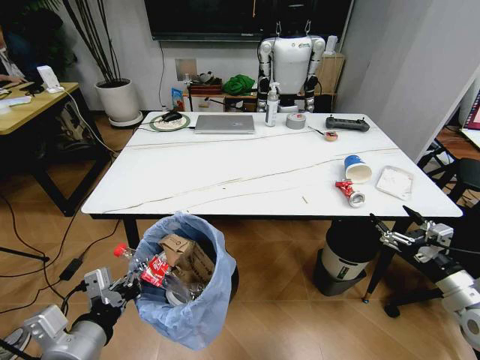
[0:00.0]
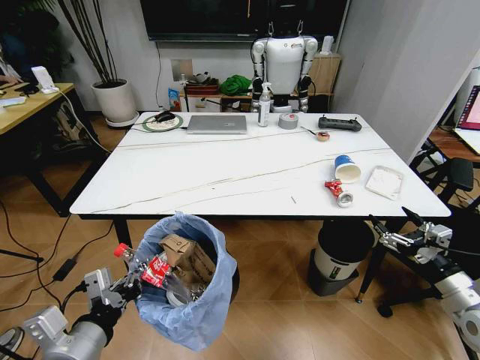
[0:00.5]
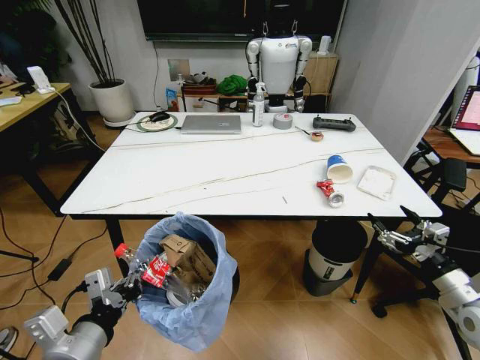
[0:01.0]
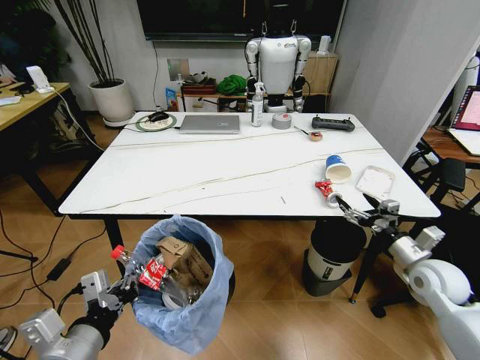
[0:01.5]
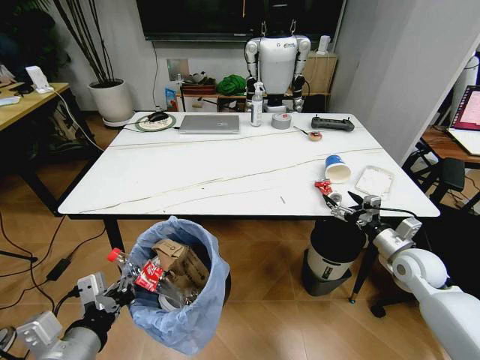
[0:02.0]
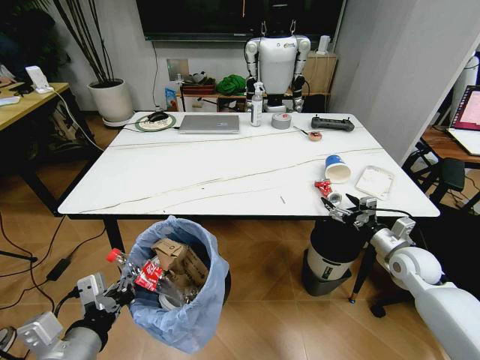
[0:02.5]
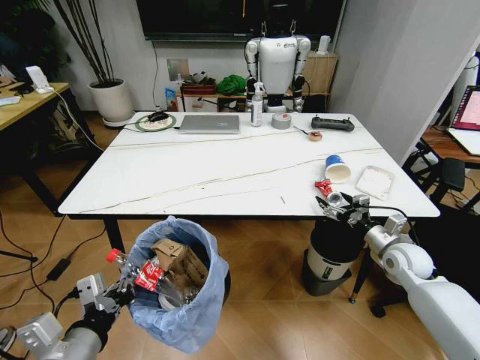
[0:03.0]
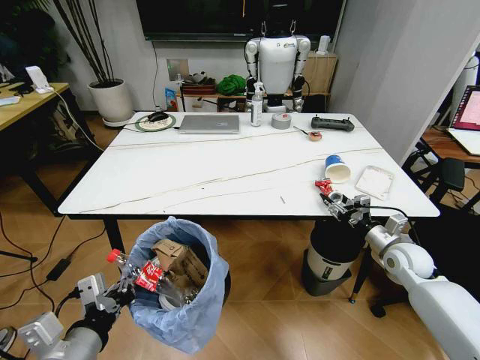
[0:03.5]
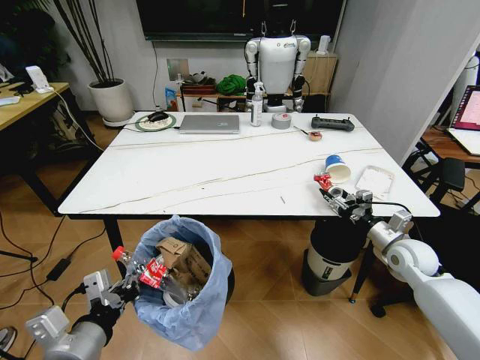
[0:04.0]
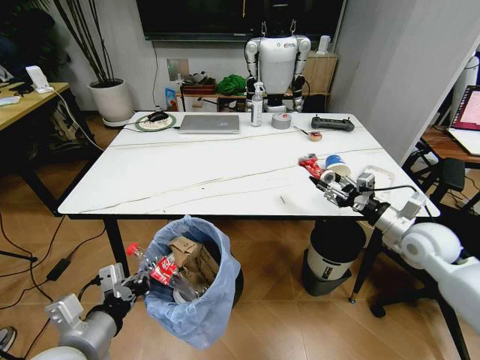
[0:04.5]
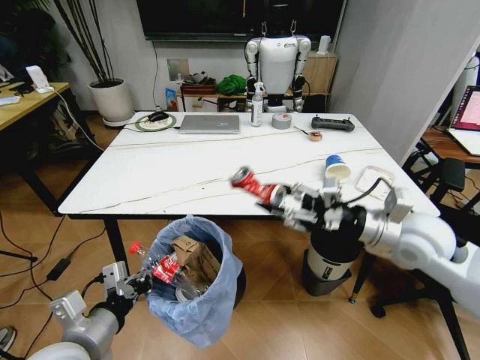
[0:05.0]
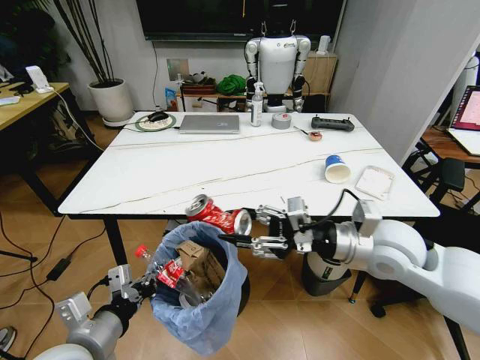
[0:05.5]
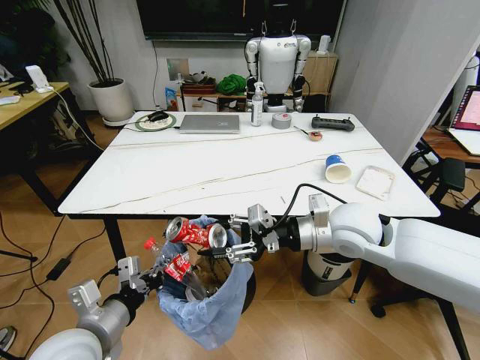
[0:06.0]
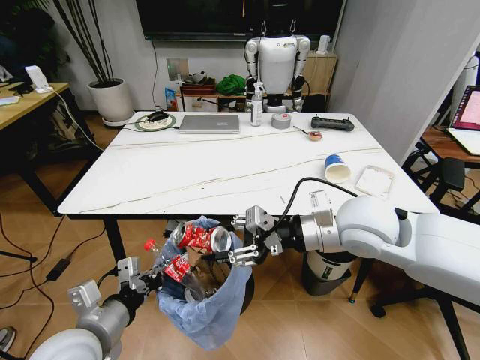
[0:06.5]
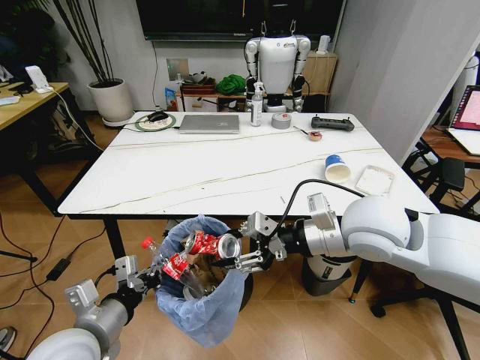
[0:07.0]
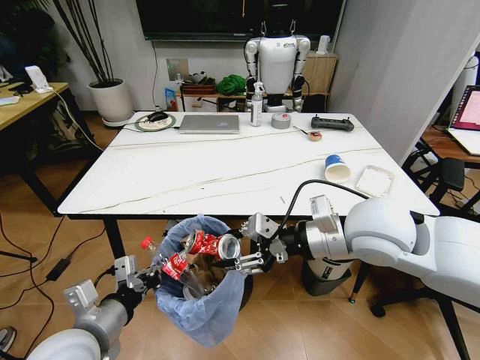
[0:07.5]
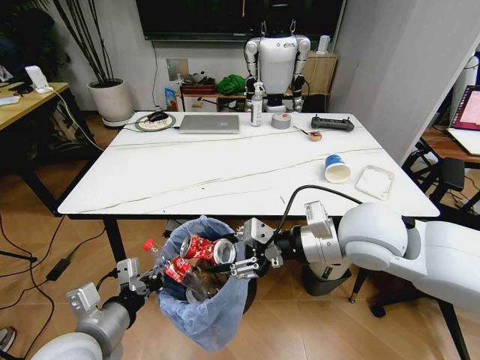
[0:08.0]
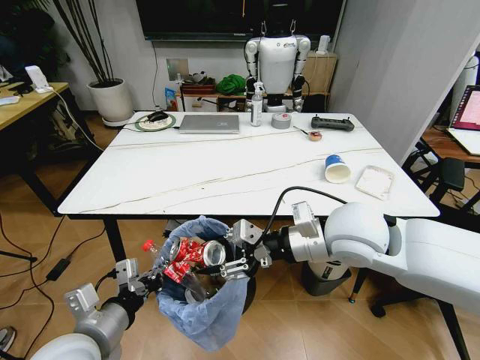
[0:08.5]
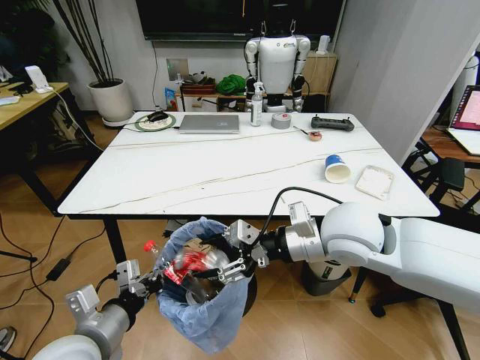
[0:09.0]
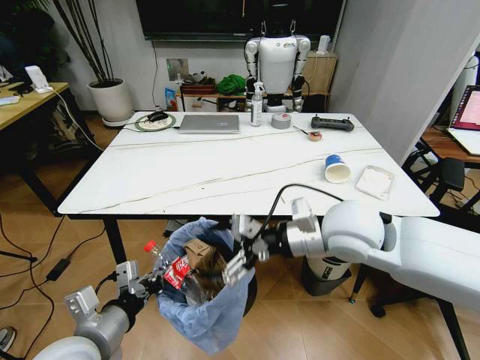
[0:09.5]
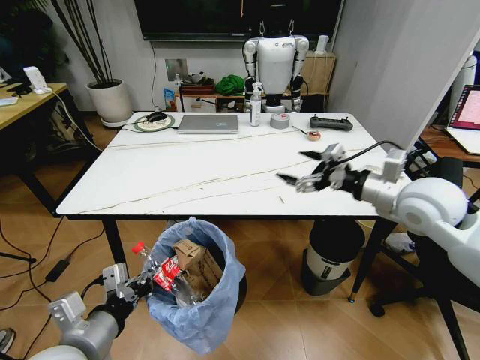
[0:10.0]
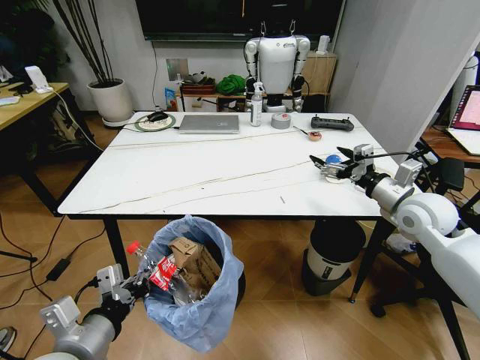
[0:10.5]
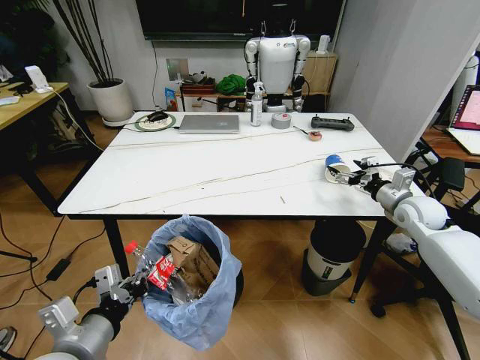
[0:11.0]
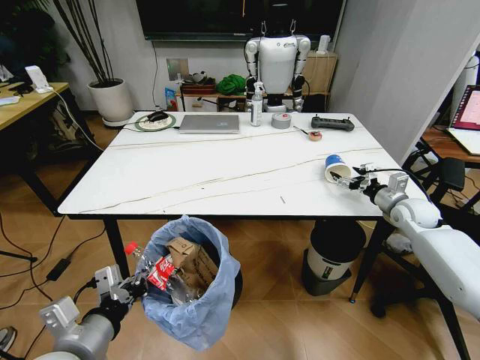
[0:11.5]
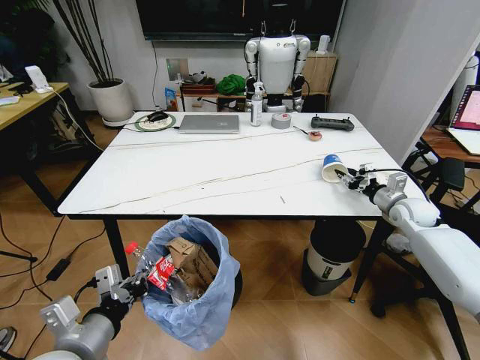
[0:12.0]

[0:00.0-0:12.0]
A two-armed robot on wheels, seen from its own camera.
Task of the whole recording: Pick up the trash bin and place the trash from the table into it.
0:00.0 to 0:02.0: The right gripper travels forward and to the left by roughly 15 cm.
0:02.0 to 0:04.0: The right gripper closes.
0:04.0 to 0:06.0: The right gripper moves to the left and upward, some 25 cm; the left gripper shifts by some 5 cm.
0:06.0 to 0:08.0: The right gripper ends up roughly 5 cm from where it was.
0:08.0 to 0:10.0: The right gripper shifts approximately 15 cm to the right and forward, and opens.
0:10.0 to 0:12.0: The right gripper heads downward, to the right and forward, covering approximately 25 cm, and closes up.

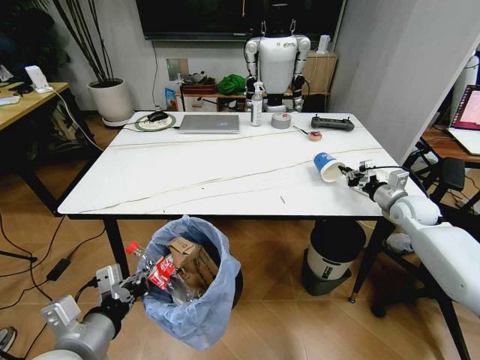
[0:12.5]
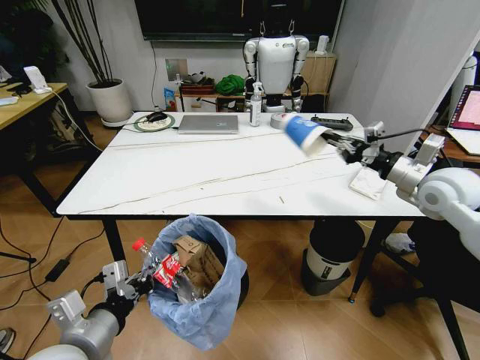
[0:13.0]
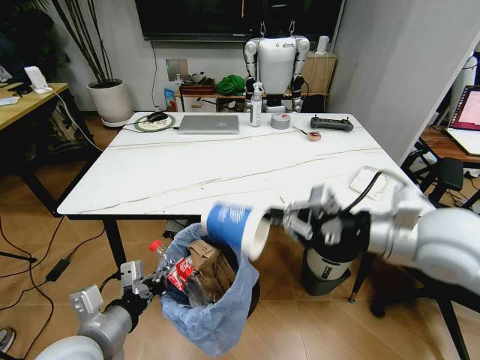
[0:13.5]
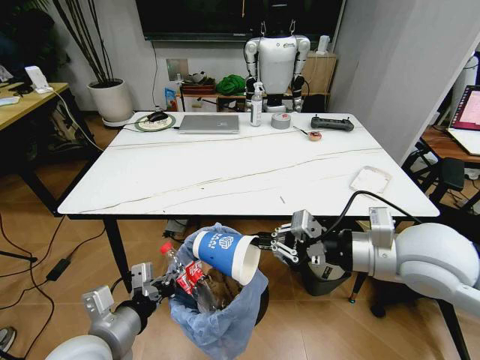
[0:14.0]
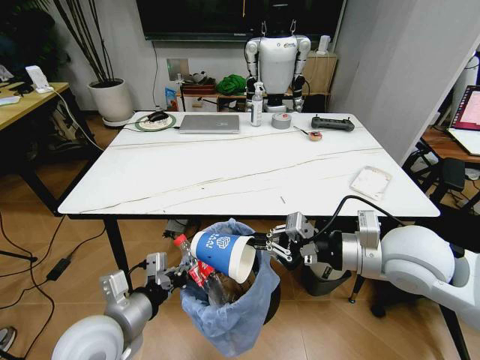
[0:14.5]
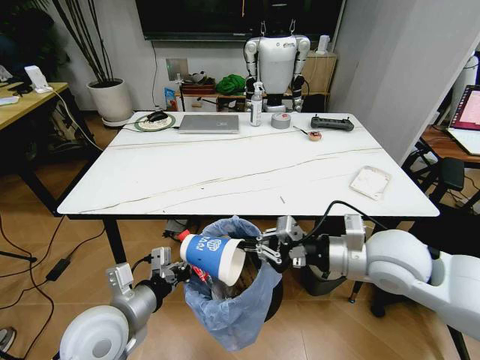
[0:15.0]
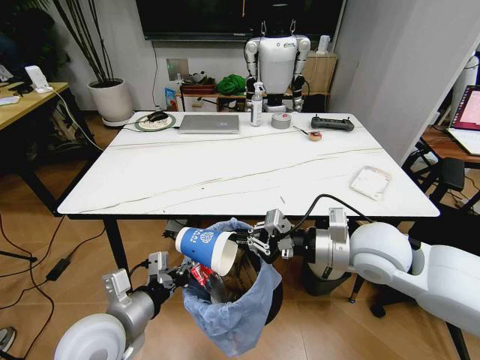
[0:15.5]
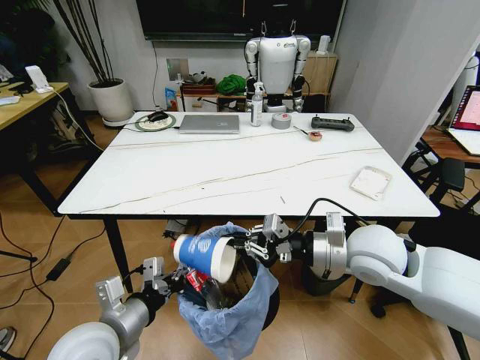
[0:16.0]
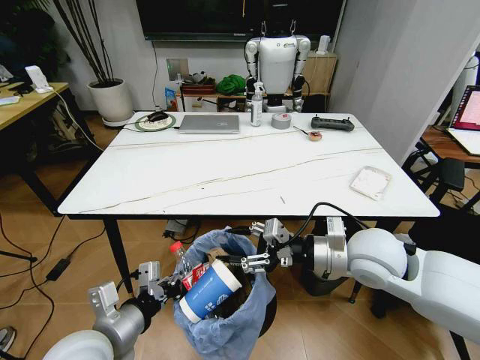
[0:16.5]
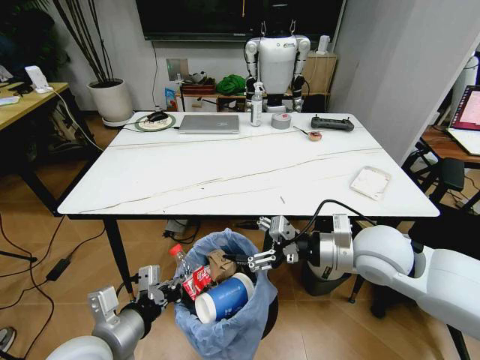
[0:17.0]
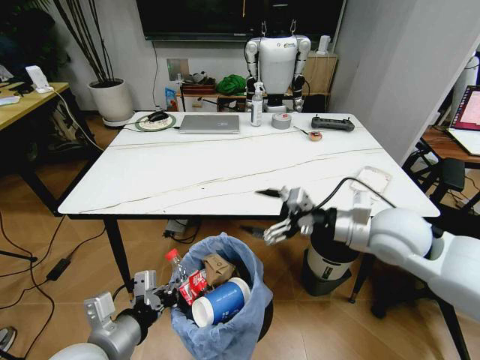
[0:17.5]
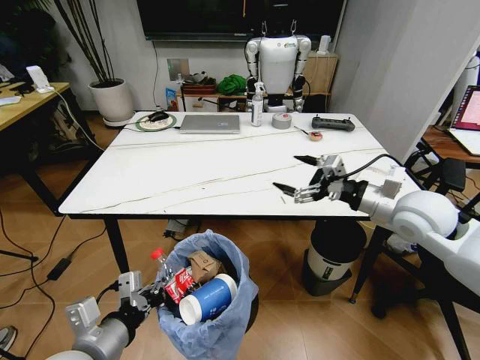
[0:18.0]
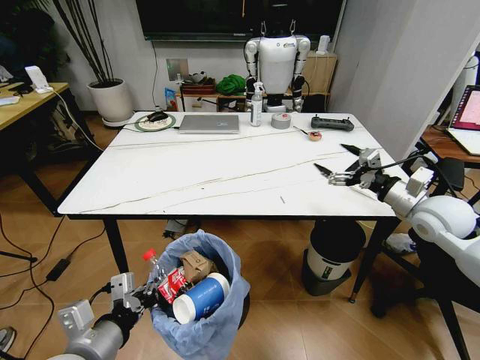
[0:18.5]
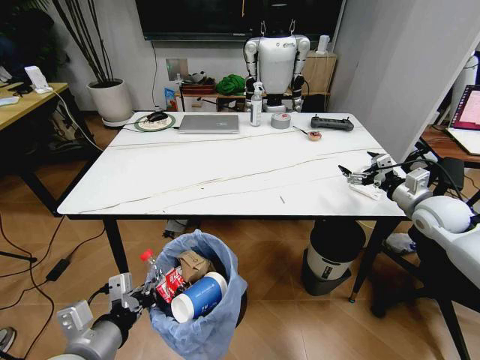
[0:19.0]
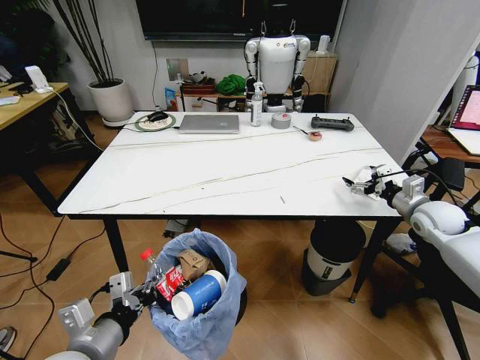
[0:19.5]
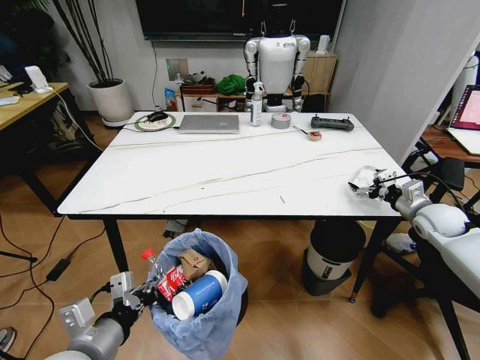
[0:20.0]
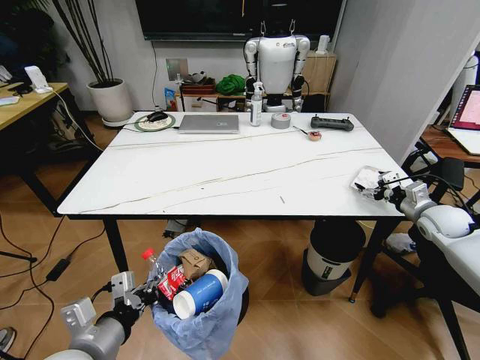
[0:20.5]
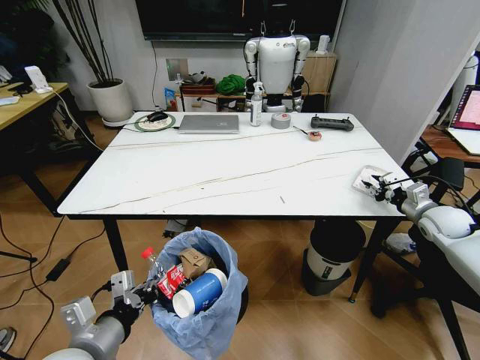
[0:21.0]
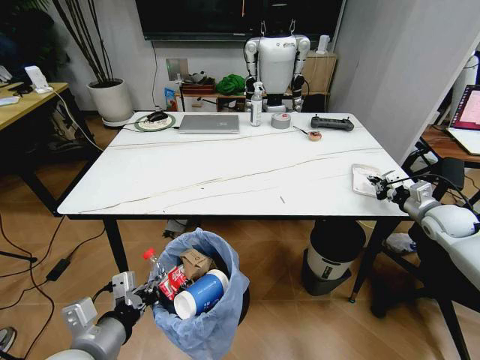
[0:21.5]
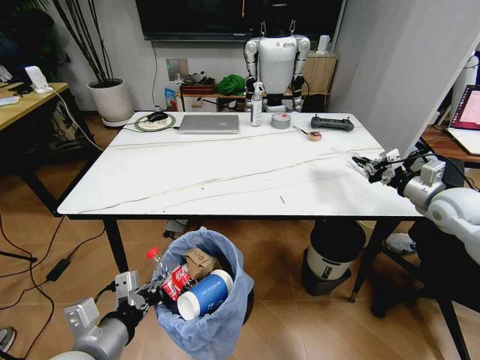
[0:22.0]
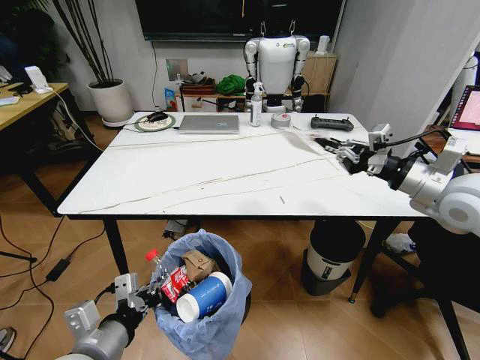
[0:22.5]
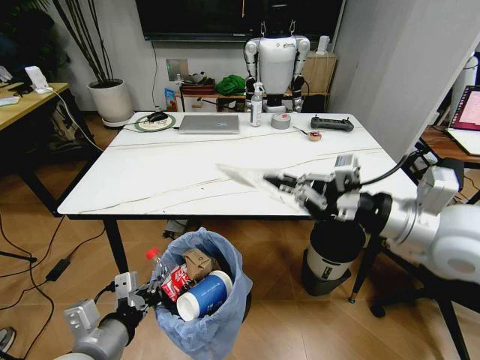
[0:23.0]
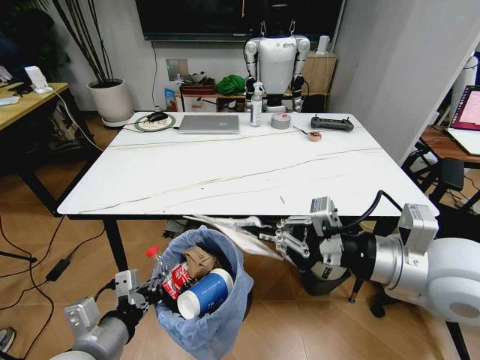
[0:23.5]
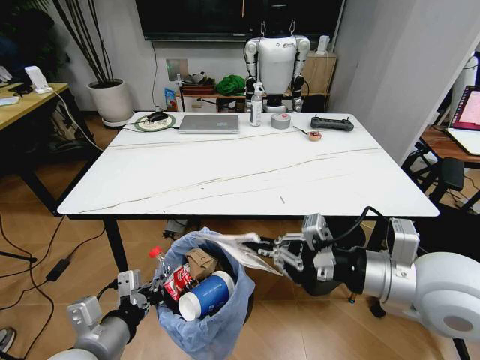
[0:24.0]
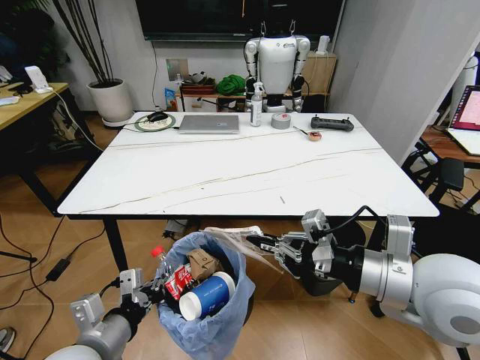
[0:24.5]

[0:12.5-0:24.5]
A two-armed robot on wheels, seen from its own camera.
Task of the whole recording: Pick up the trash bin and place the trash from the table into it.
0:12.5 to 0:14.5: The right gripper heads backward, to the left and upward, covering about 30 cm; the left gripper moves roughly 5 cm.
0:14.5 to 0:16.5: The right gripper moves some 5 cm, and opens up.
0:16.5 to 0:18.5: The right gripper heads to the right and forward, covering roughly 20 cm, and opens its fingers.
0:18.5 to 0:20.5: The right gripper travels to the right, downward and forward by some 15 cm.
0:20.5 to 0:22.5: The right gripper moves upward, to the left and backward, approximately 25 cm, and closes.
0:22.5 to 0:24.5: The right gripper shifts roughly 20 cm backward and to the left.

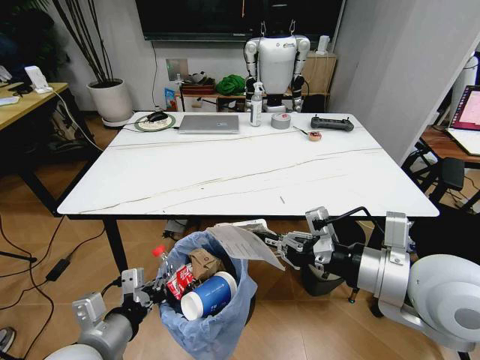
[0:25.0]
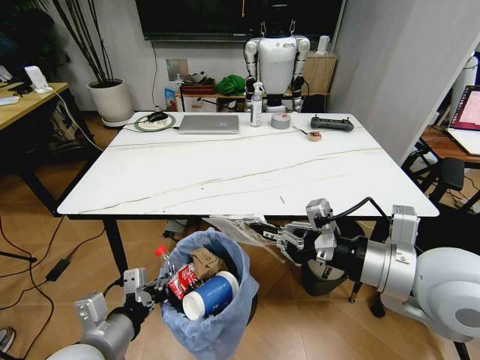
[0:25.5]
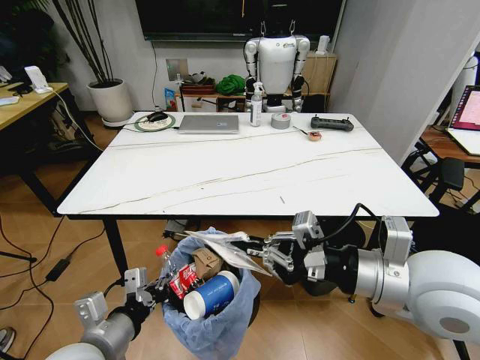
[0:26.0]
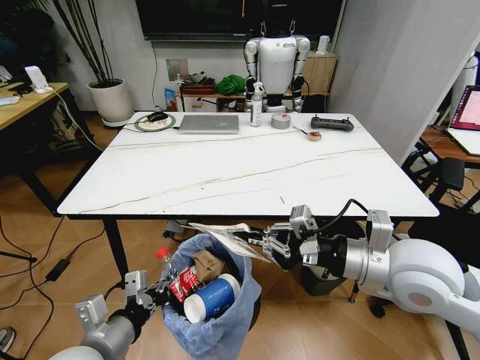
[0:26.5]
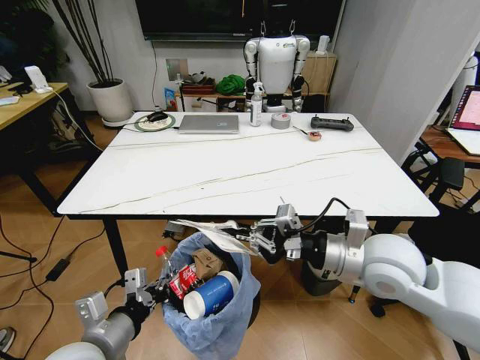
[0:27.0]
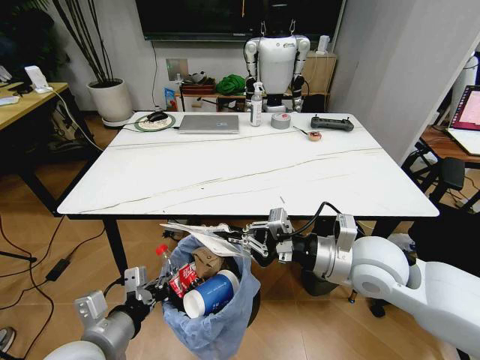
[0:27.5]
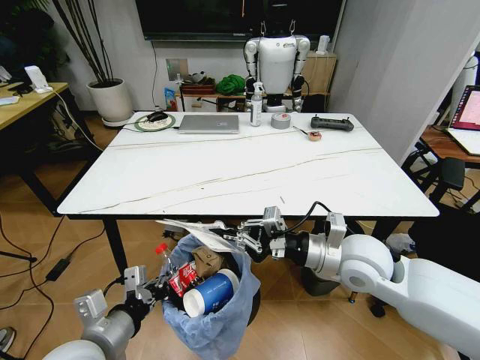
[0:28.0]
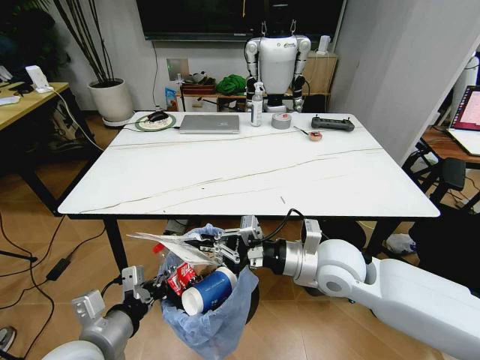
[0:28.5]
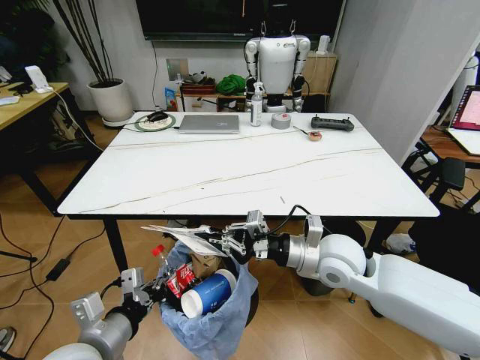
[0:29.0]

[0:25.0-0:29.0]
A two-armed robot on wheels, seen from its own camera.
Task of the whole recording: Pick up the trash bin and place the trash from the table into it.
0:25.0 to 0:27.0: The right gripper is displaced forward and downward by some 10 cm.
0:27.0 to 0:29.0: The right gripper moves downward and to the left, some 10 cm.
